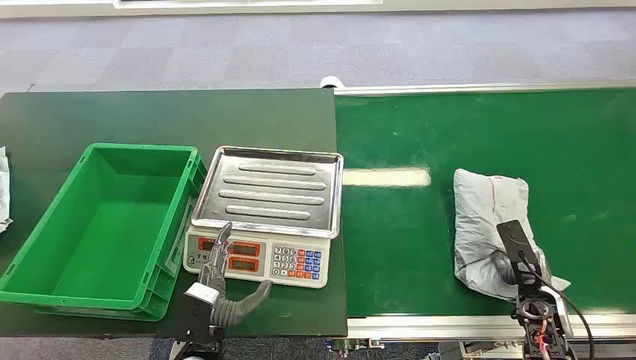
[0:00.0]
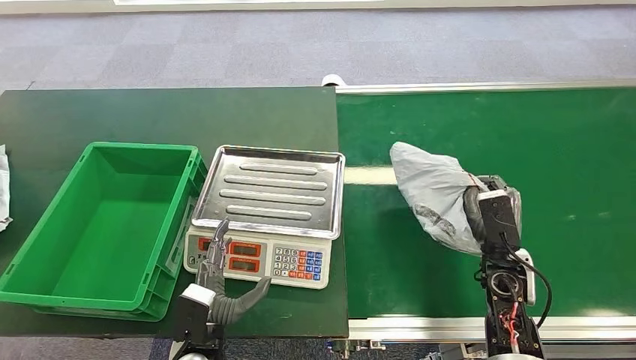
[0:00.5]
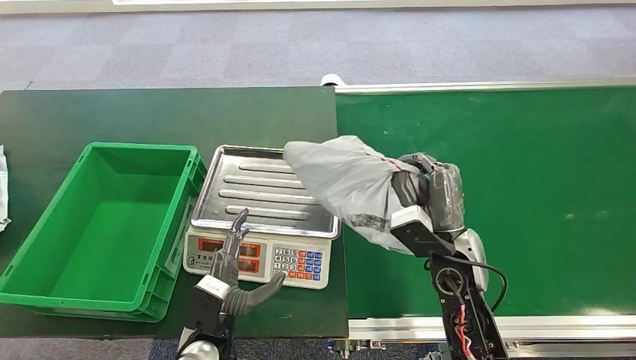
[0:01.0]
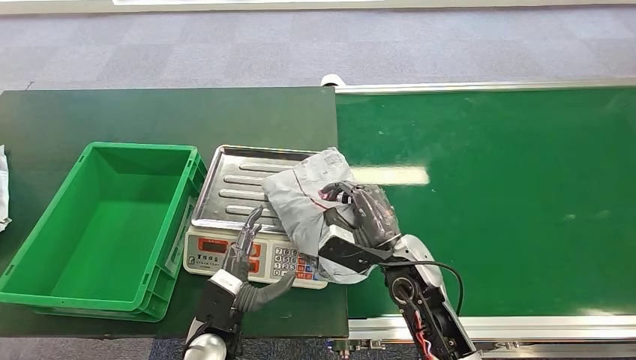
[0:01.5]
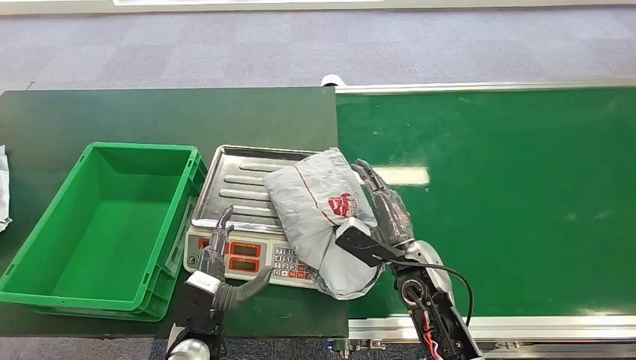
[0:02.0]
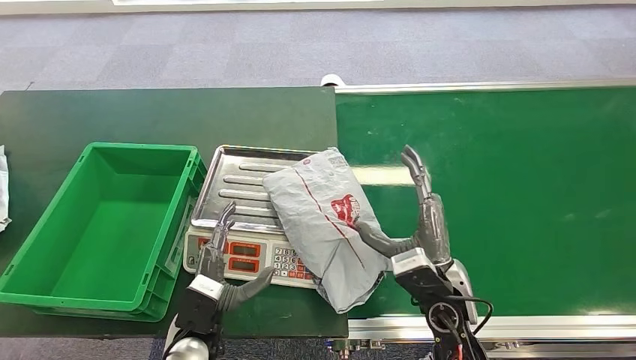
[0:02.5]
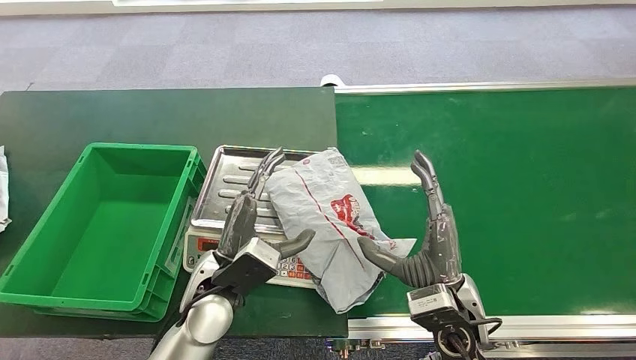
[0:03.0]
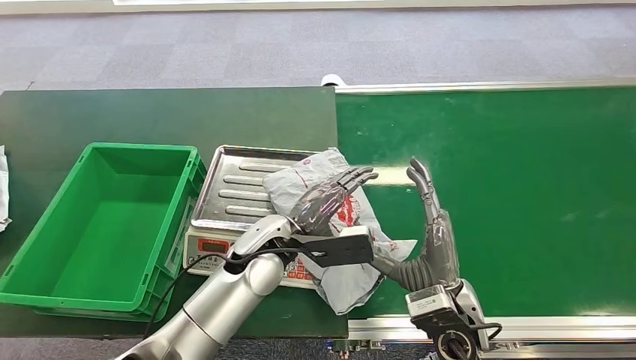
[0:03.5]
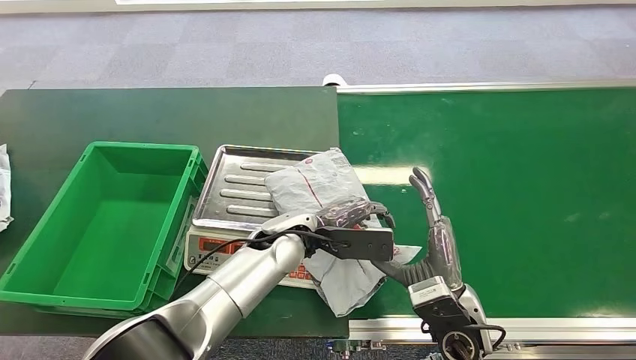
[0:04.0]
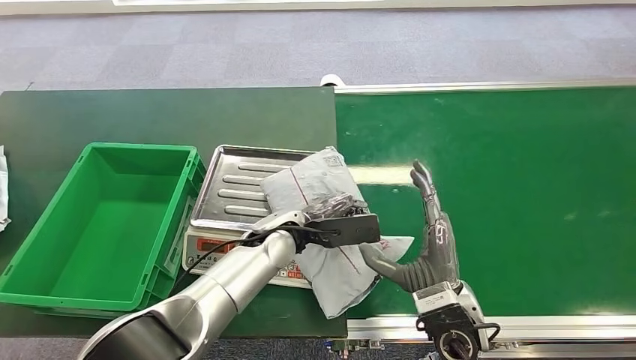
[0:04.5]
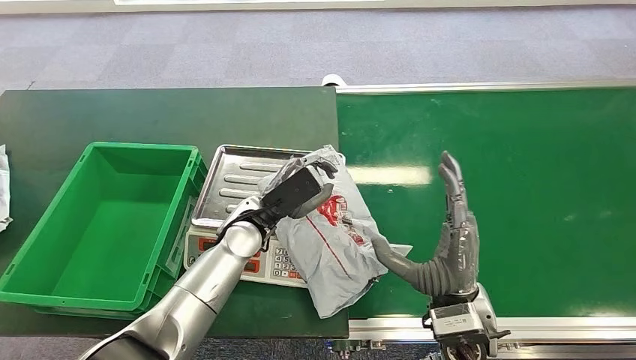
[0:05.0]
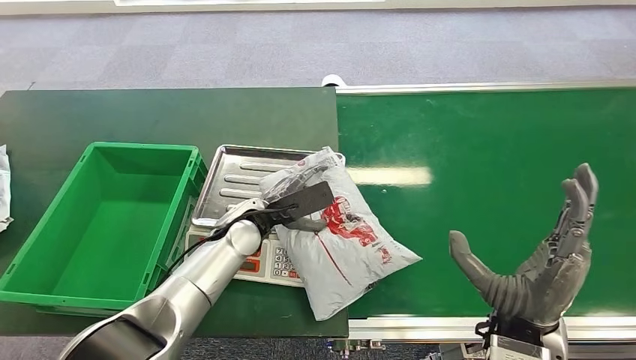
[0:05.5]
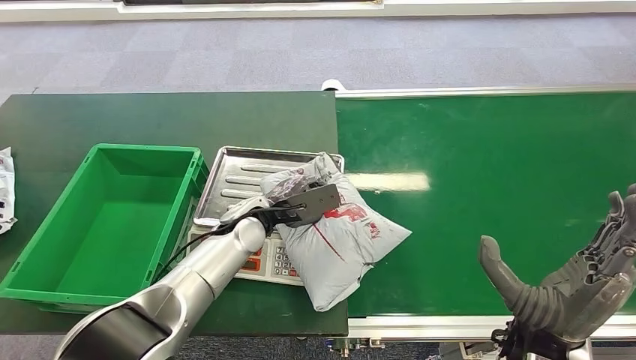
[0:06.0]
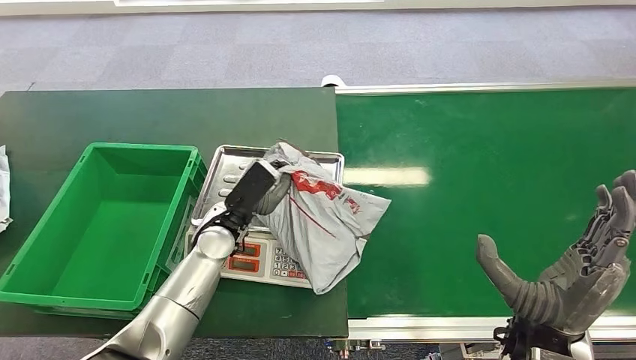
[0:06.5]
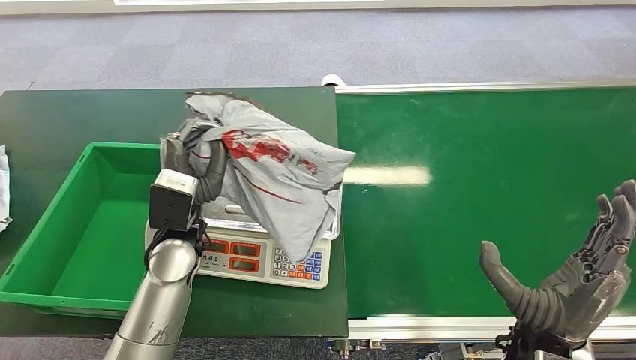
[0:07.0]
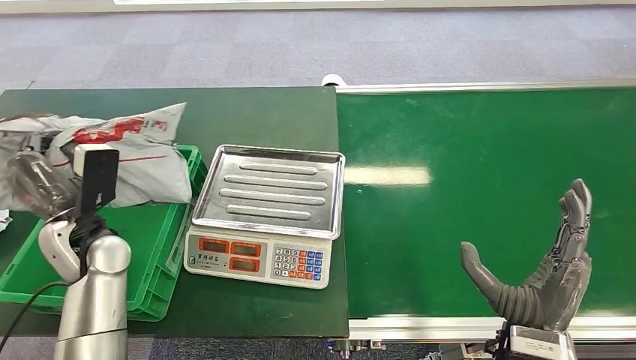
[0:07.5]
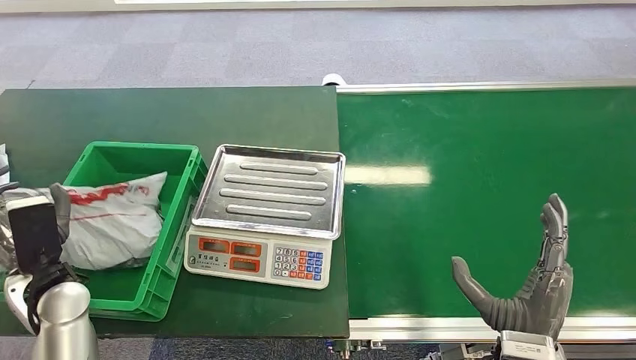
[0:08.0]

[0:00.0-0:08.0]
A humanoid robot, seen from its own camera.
Step, 0:00.0 to 0:00.5: Pick up the package from the conveyor belt.
Step, 0:01.5 to 0:02.0: Place the package onto the inbound machine.
Step, 0:07.5 to 0:08.0: Place the package into the parcel locker.
0:02.0 to 0:04.0: The right hand heads backward, covering approximately 10 cm. Meanwhile the left hand heads forward, to the right and upward, covering approximately 20 cm.
